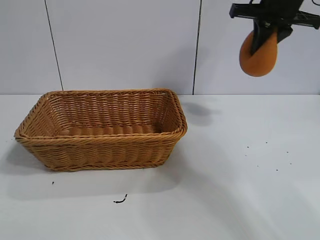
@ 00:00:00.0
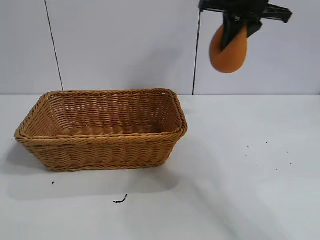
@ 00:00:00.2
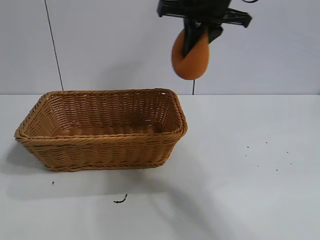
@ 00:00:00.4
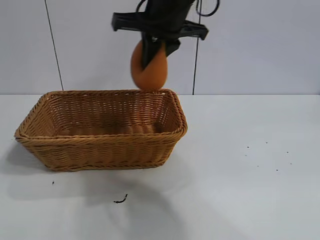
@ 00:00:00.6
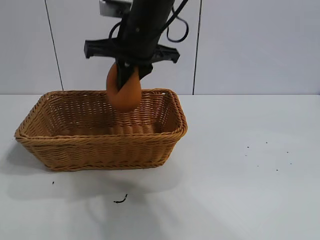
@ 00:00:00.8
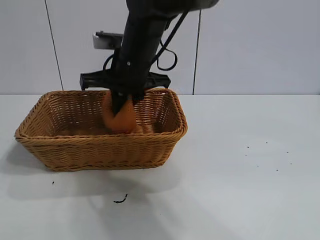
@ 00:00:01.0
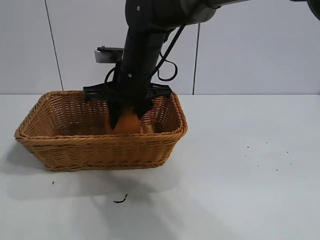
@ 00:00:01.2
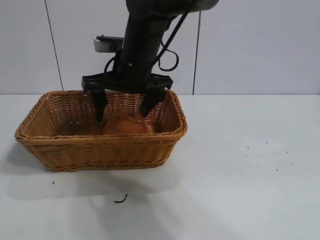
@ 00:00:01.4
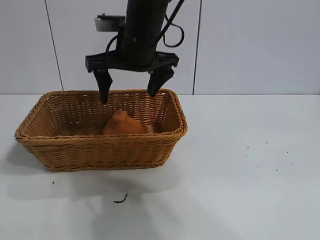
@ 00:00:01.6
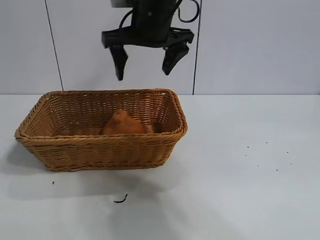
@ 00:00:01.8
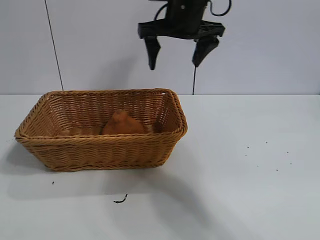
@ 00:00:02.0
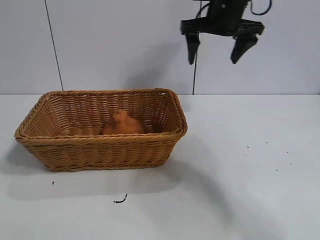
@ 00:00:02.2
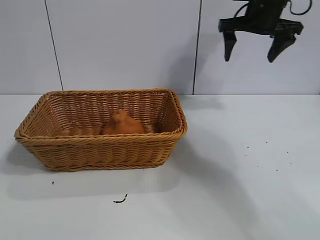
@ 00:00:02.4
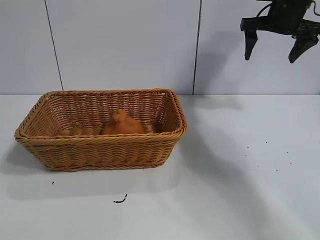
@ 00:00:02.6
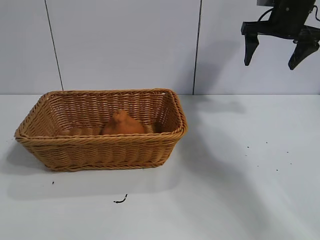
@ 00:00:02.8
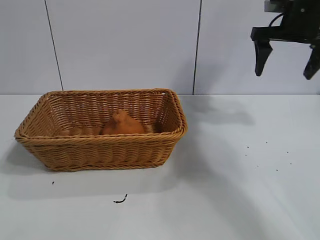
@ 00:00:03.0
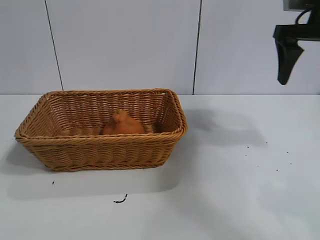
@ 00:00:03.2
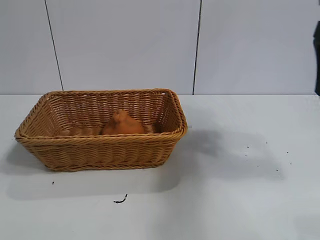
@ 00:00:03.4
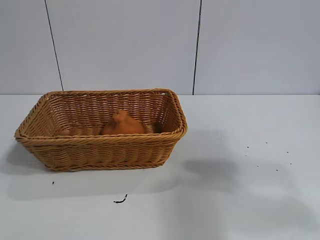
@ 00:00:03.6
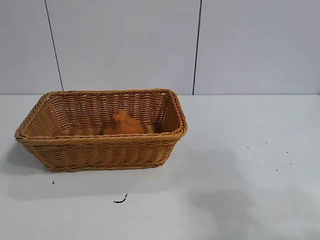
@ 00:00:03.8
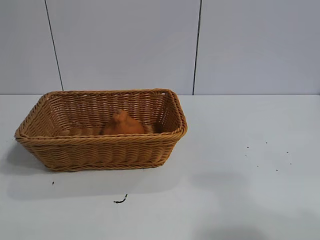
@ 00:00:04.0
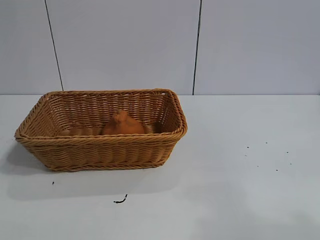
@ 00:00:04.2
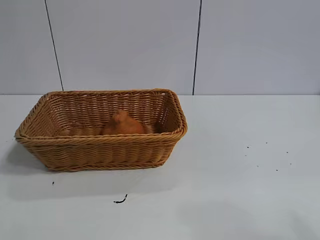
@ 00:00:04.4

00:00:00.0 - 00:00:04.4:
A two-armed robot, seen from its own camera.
Task of the whole recording: pick up the orange and put it into the basket.
Step, 00:00:00.0 - 00:00:01.2: Place the orange in the basket with right gripper.
